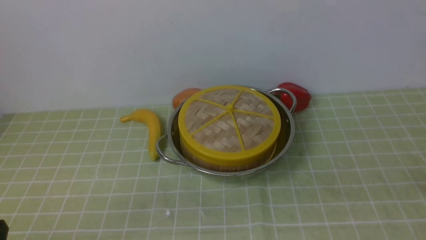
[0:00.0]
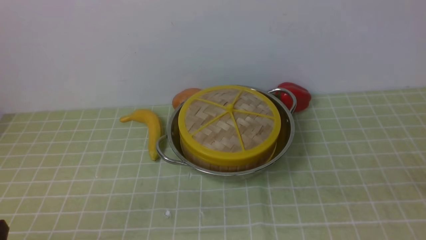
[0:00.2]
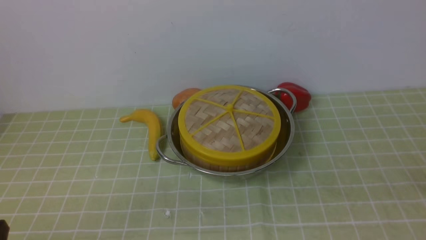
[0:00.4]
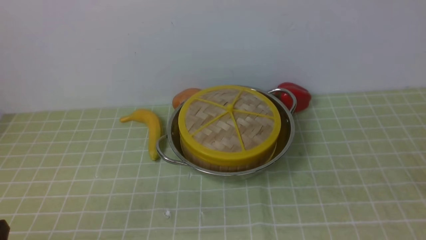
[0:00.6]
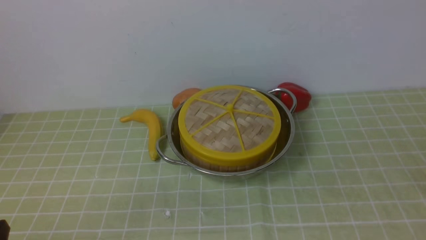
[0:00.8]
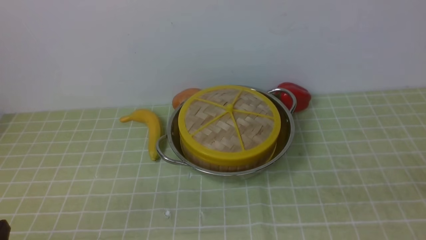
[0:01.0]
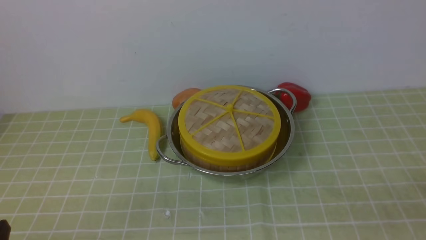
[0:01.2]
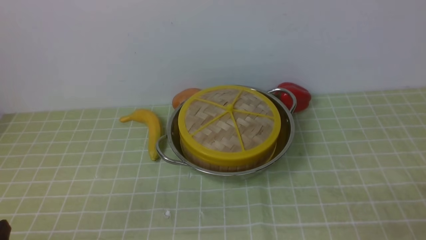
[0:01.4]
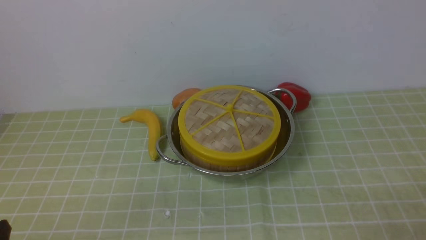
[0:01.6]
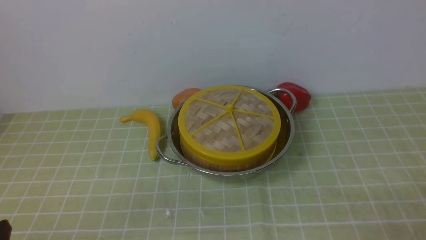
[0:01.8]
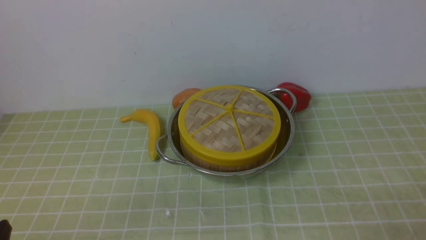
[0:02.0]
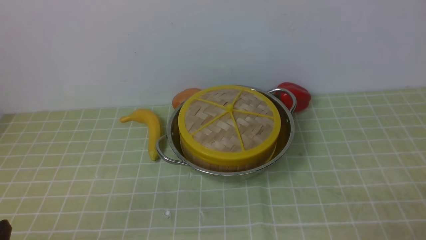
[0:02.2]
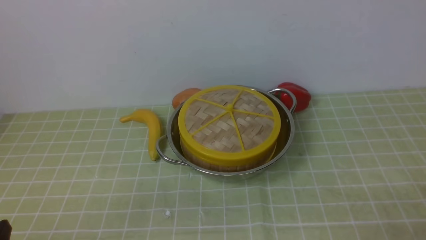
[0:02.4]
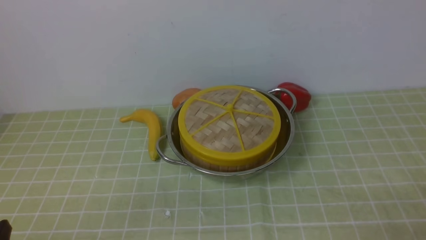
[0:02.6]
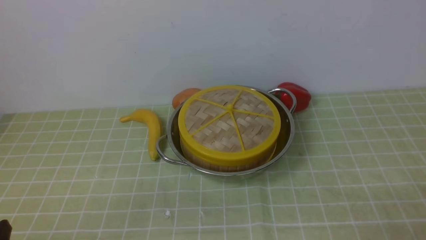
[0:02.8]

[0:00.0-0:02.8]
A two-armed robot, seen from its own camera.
Task of the whole recording: place the steamer in the pot on the green tablecloth, and put the lid on the steamer.
0:01.4 to 0:02.8: The two grippers keep their place.
